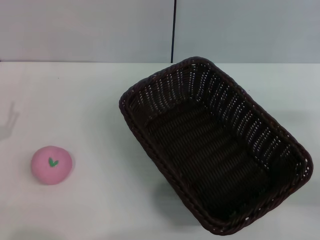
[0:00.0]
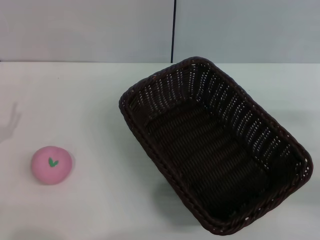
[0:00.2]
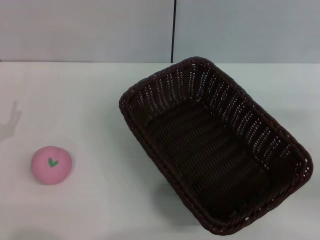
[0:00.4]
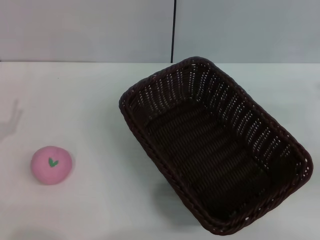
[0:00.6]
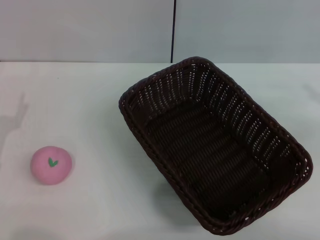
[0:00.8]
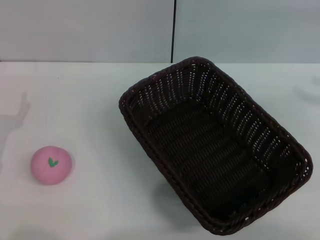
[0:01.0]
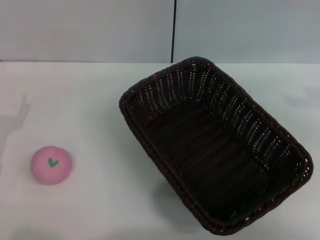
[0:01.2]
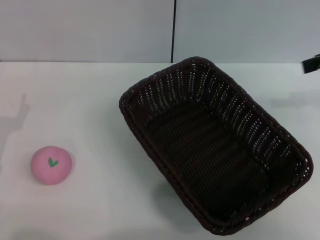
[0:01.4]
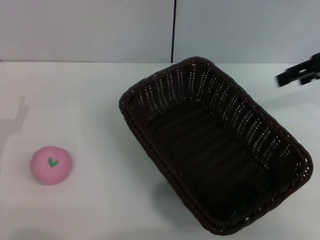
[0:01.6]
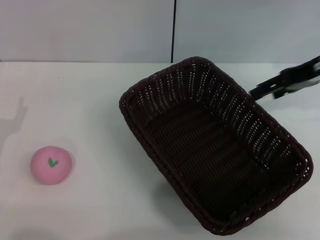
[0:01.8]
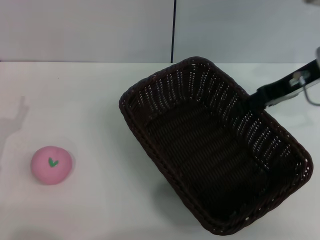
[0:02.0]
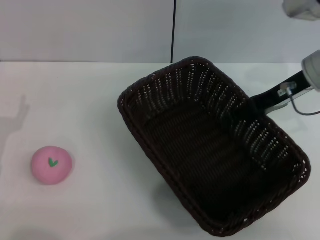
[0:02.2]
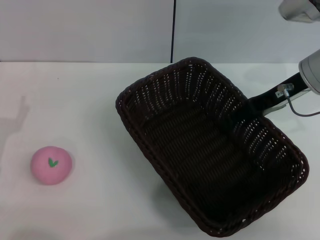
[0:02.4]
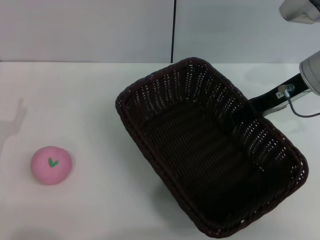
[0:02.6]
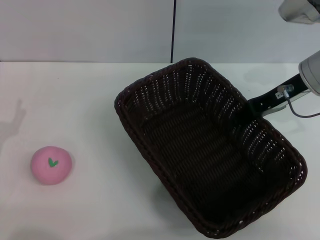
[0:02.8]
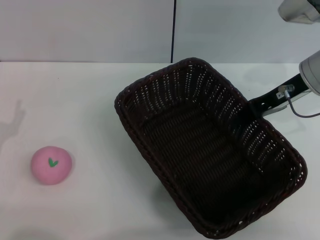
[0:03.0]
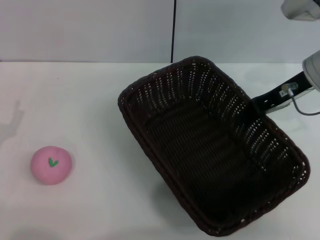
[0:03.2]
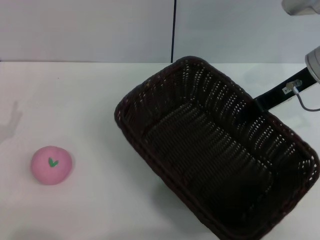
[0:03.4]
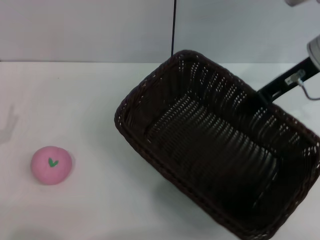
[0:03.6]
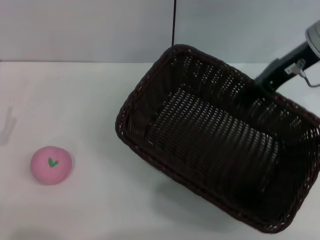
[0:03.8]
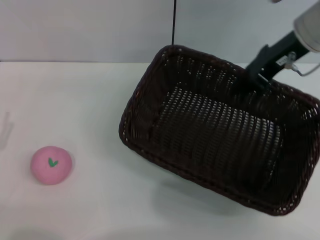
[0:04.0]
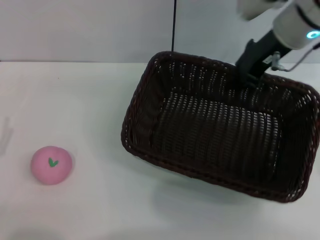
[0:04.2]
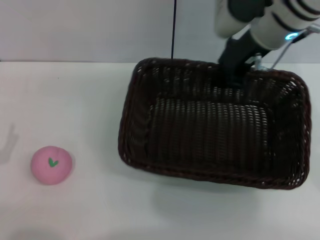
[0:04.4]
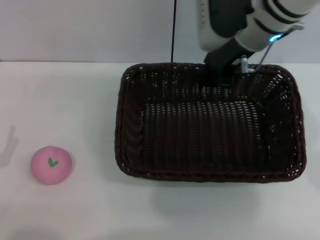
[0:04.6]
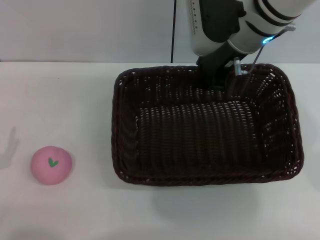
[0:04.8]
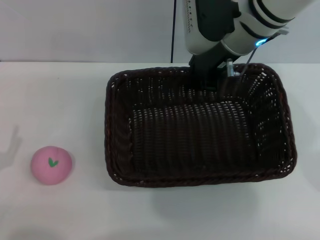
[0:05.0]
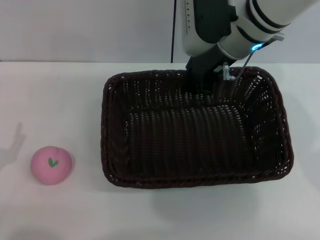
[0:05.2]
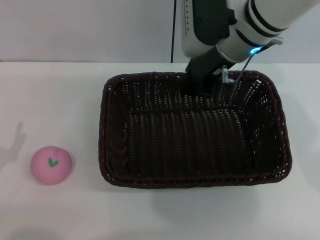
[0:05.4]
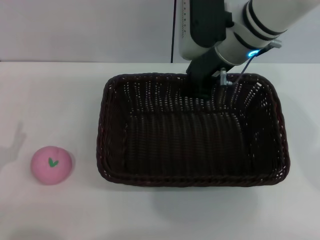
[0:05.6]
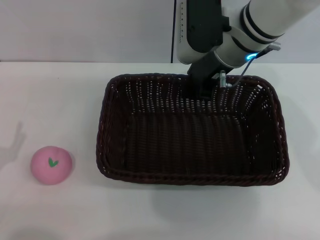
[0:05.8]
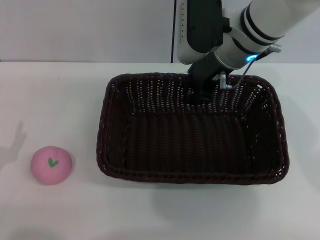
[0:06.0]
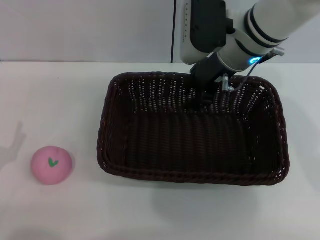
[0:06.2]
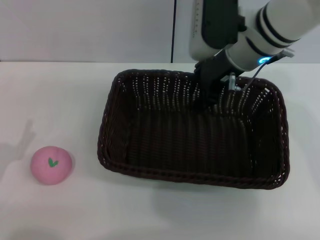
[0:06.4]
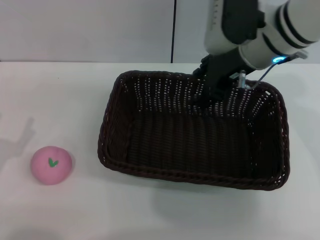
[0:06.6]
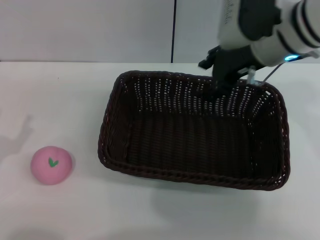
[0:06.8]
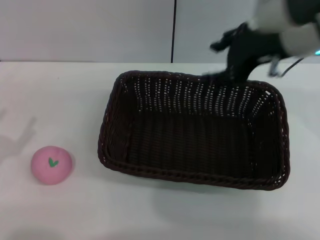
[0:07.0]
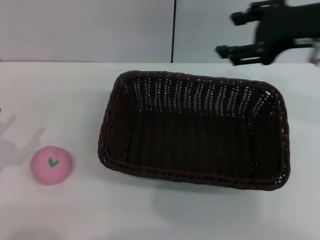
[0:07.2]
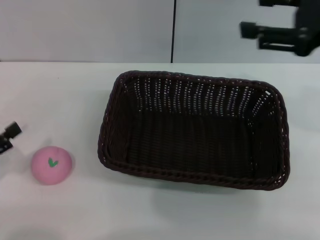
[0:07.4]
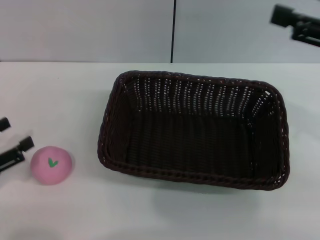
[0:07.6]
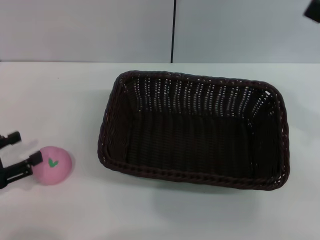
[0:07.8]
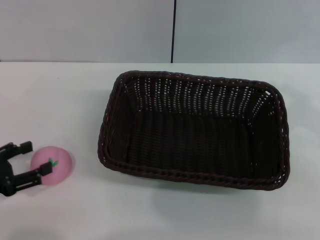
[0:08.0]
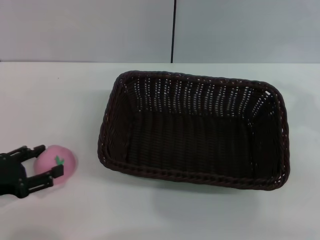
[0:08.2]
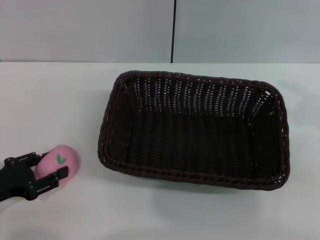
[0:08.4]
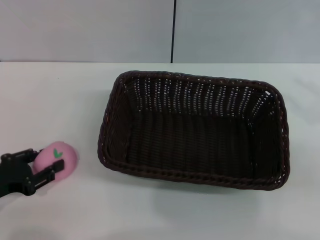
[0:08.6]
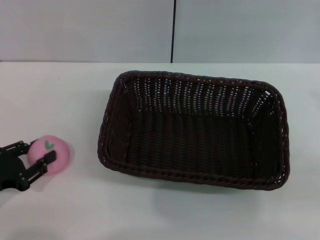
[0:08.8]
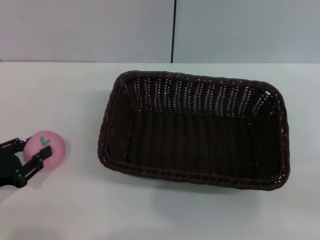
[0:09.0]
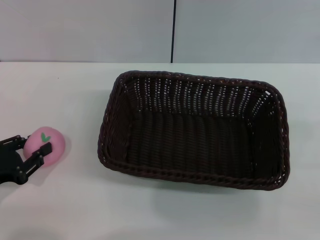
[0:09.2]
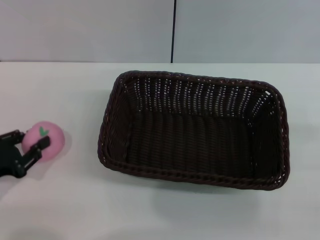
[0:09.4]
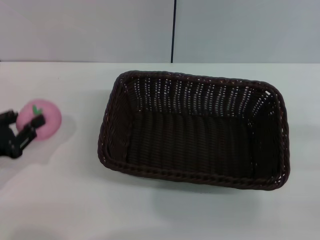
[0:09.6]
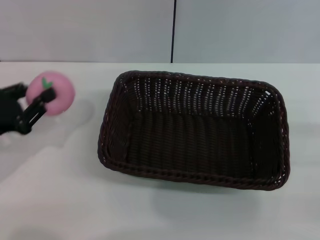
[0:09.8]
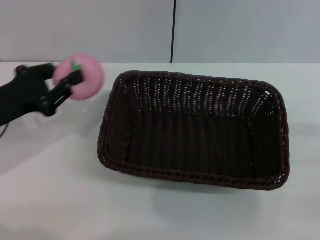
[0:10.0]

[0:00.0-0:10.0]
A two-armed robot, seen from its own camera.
Step, 0:00.0 to 0:03.6: Pick up the dark basket with the right gripper.
Step, 0:04.0 to 0:06.8: Place the dark basket in the center of view with the right gripper.
Step, 0:07.0 to 0:09.8: Pick up the peach with the left gripper.
0:00.0 to 0:01.4: The right gripper travels upward and forward by about 25 cm.
0:01.4 to 0:02.8: The right gripper heads to the left and downward, covering some 15 cm.
0:02.8 to 0:04.2: The right gripper goes some 10 cm to the left and upward, and closes.
0:04.2 to 0:05.8: The right gripper moves to the left, some 5 cm.
0:05.8 to 0:07.2: The left gripper heads to the left, covering approximately 5 cm. The right gripper is displaced to the right, backward and upward by some 15 cm, and opens its fingers.
0:07.2 to 0:08.6: The right gripper moves to the right, backward and downward, roughly 20 cm; the left gripper shifts by approximately 5 cm.
0:08.6 to 0:10.0: The left gripper is displaced forward and upward by some 10 cm, and closes.

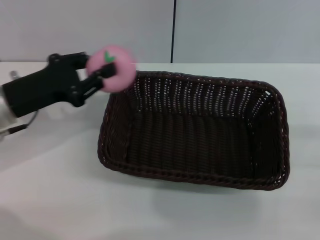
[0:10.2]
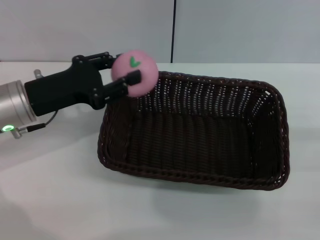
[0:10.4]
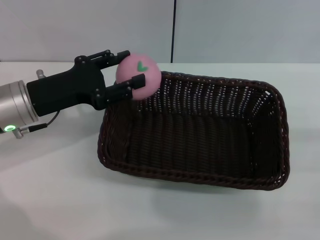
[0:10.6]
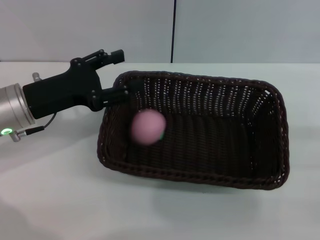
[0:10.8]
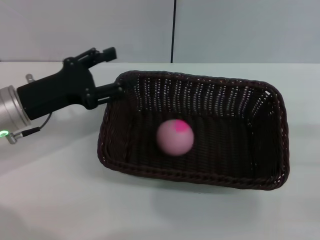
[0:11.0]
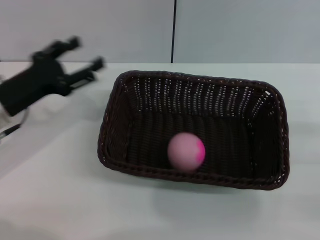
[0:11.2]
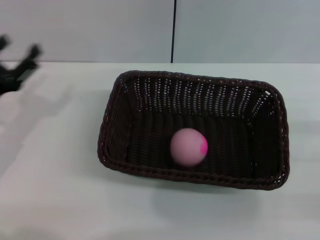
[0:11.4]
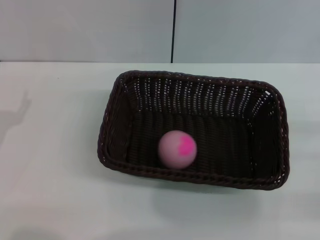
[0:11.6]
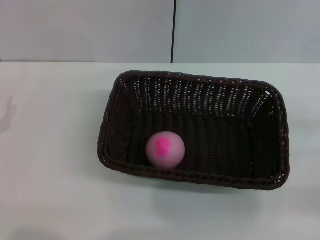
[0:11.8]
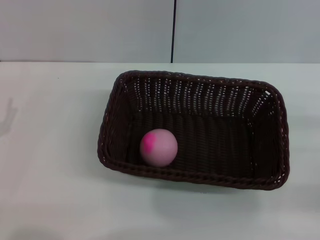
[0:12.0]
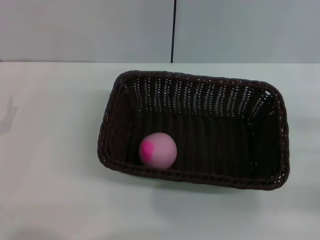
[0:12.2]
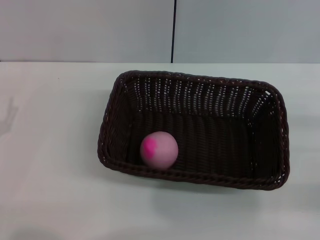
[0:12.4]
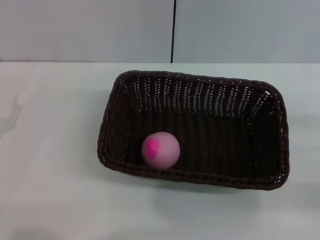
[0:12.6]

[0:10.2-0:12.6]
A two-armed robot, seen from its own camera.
Step, 0:10.2 to 0:11.4: Place the peach into the basket with the left gripper.
0:10.2 to 0:11.4: The left gripper goes about 10 cm downward and to the left, and opens.
